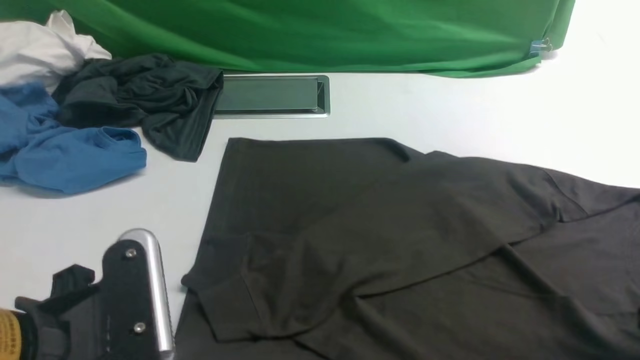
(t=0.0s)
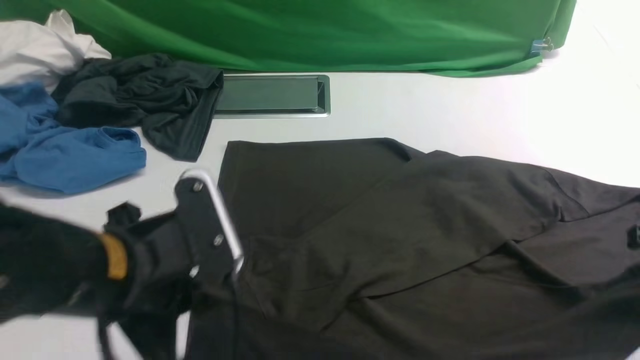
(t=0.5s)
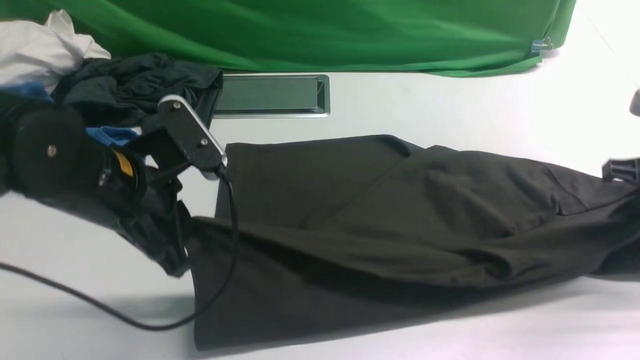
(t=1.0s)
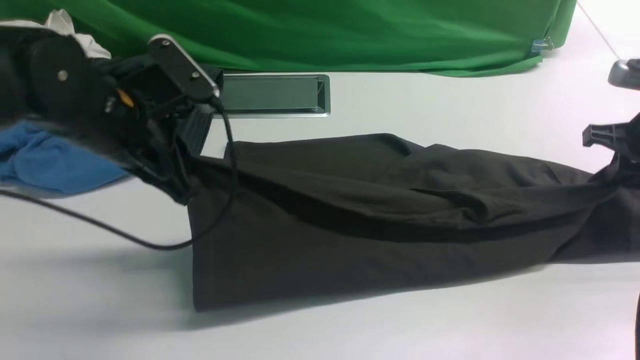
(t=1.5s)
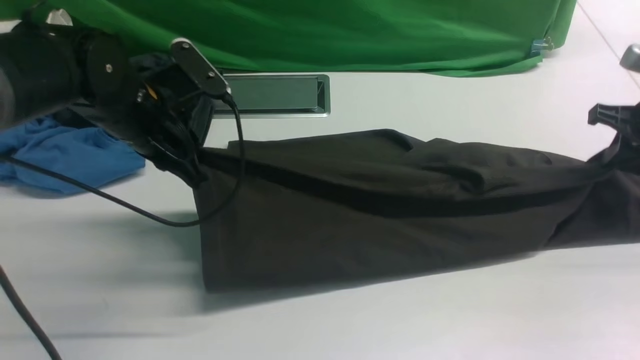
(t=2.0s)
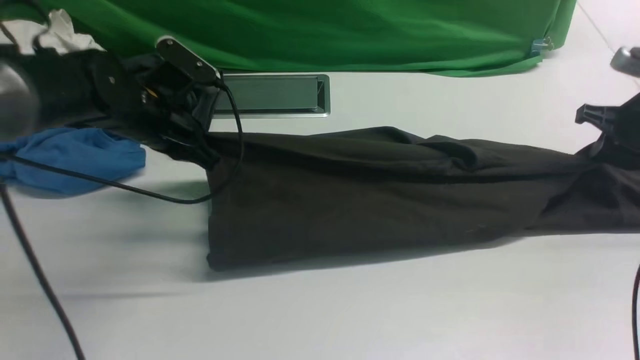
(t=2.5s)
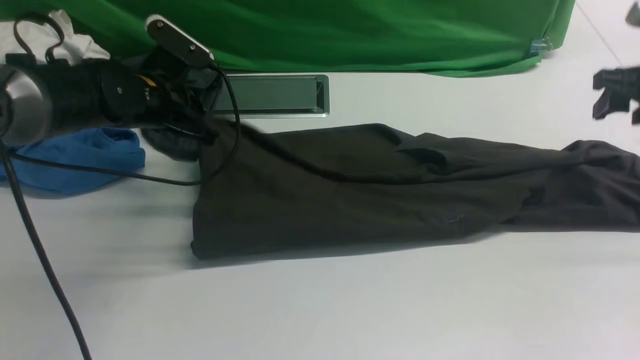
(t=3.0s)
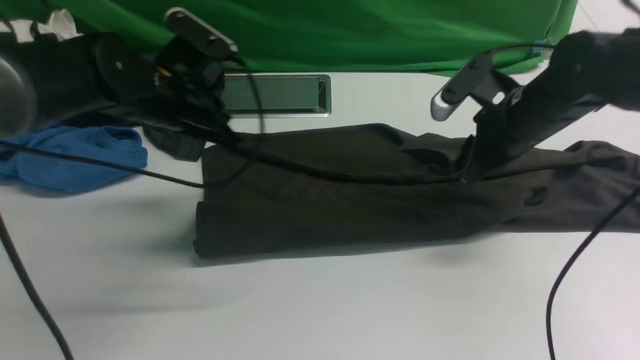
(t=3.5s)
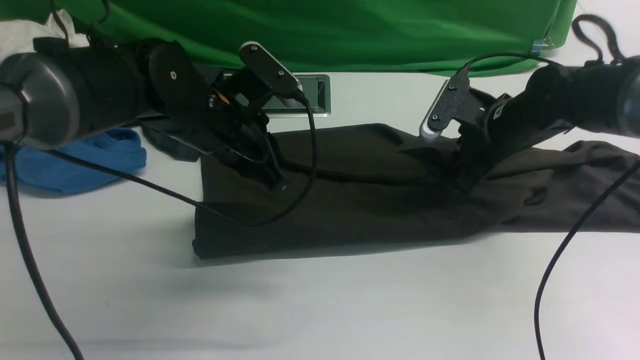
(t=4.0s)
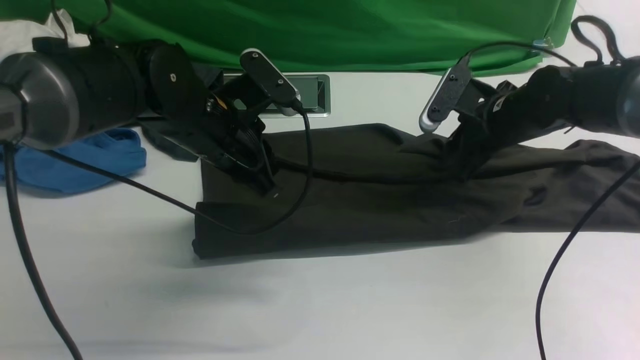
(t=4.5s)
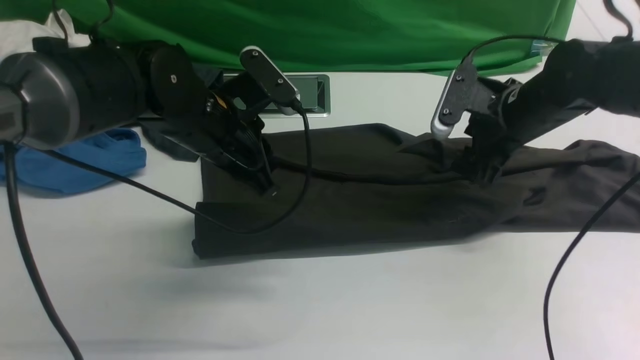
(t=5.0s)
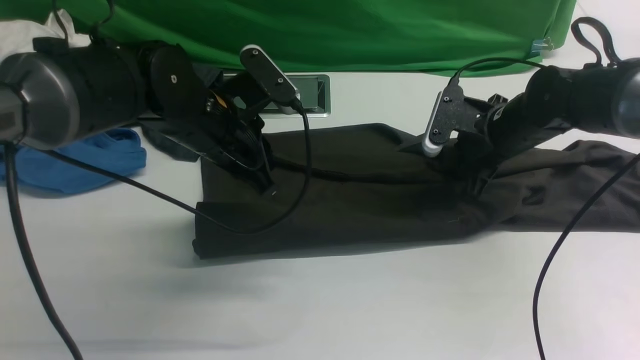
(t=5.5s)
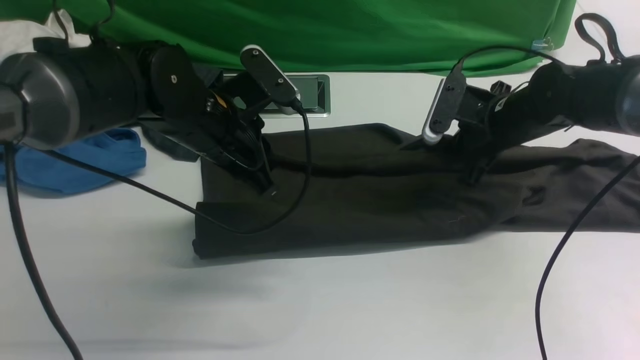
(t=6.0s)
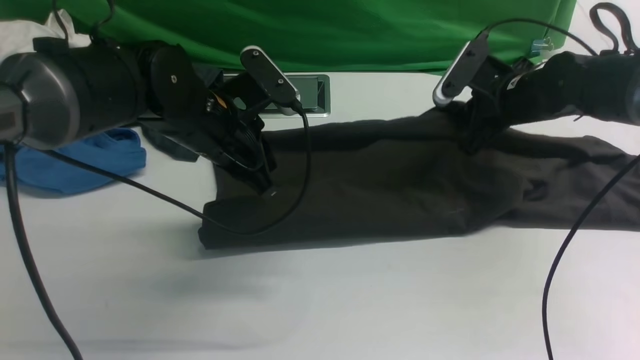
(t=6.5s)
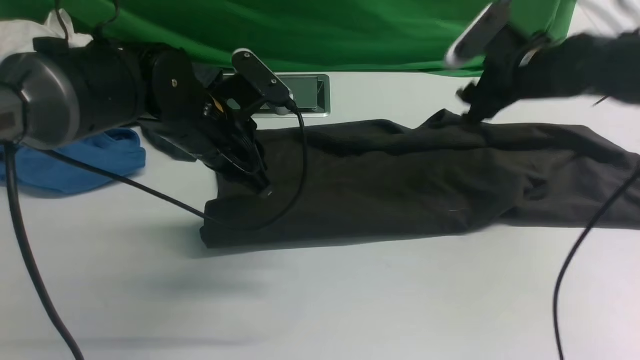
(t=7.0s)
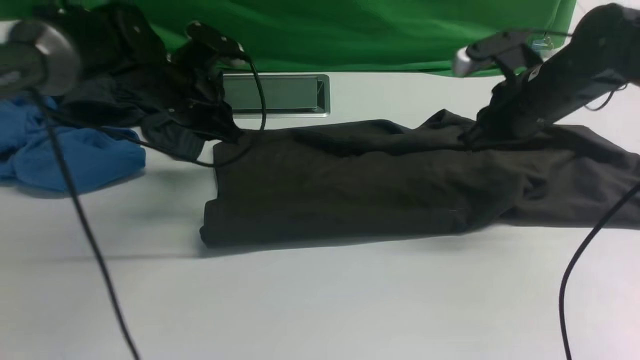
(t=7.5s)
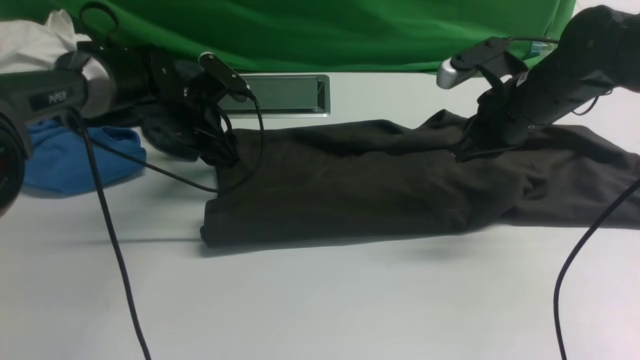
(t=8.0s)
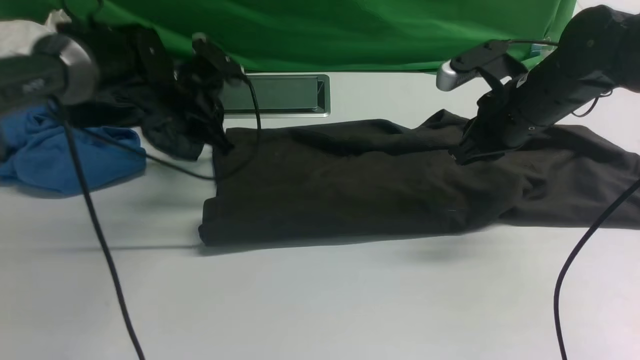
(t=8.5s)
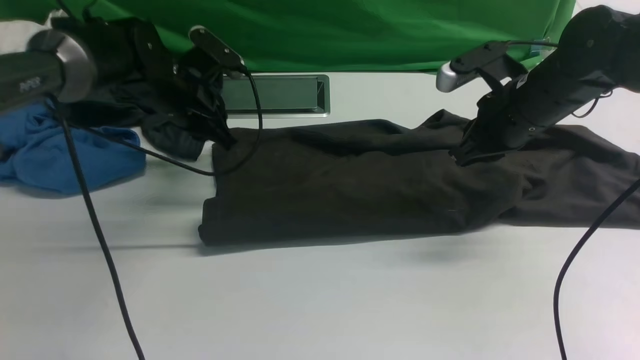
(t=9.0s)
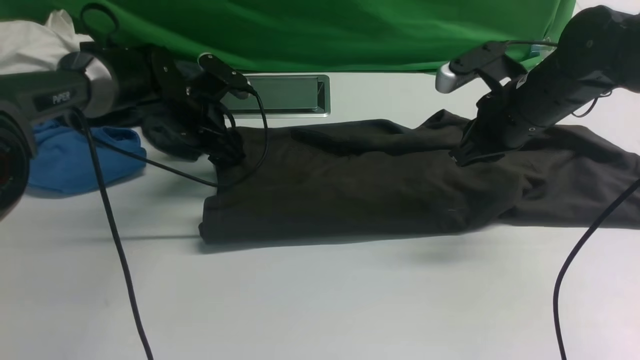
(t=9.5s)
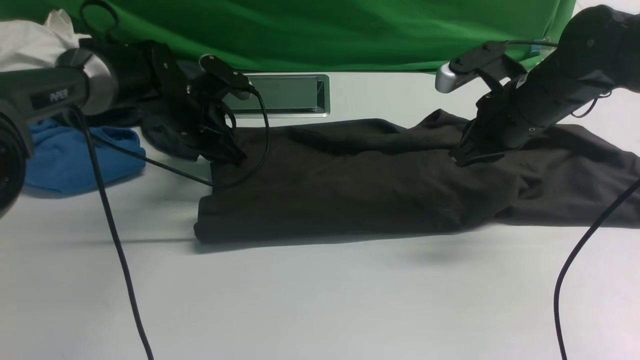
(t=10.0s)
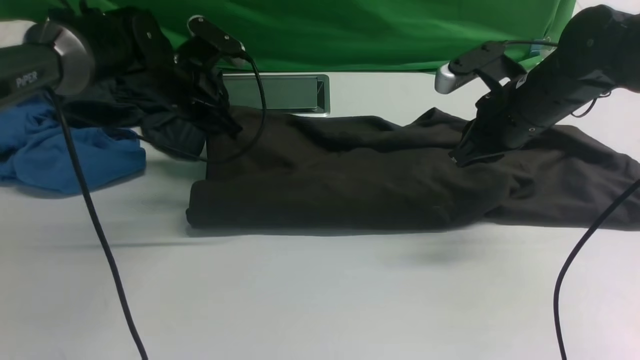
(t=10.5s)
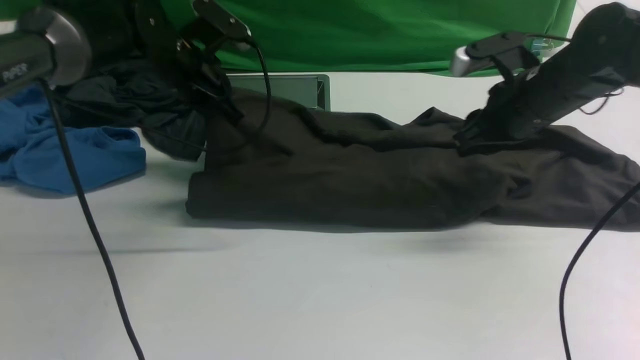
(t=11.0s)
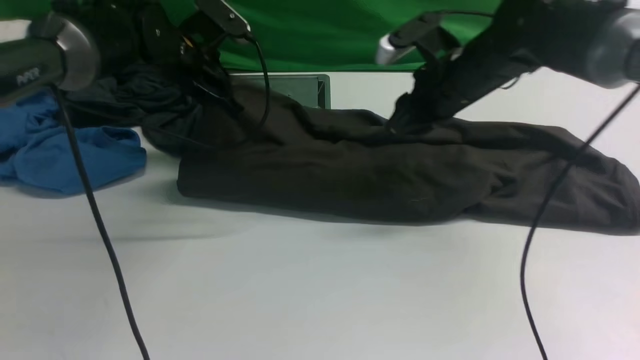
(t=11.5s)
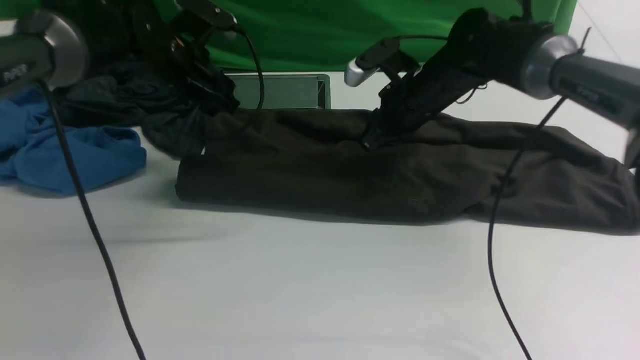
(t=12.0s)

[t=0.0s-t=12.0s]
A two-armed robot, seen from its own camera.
t=0.0s to t=2.0s: Both grippers travel together forward, approximately 25 cm.
t=2.0s to t=4.0s: The right gripper heads to the left, covering roughly 15 cm, and opens its fingers; the left gripper goes some 10 cm to the right, and opens and closes again.
t=4.0s to t=6.0s: The right gripper closes up.
t=6.0s to t=8.0s: The right gripper goes approximately 5 cm upward, and opens and closes again; the left gripper goes roughly 15 cm forward, downward and to the left, and opens its fingers.
t=8.0s to t=10.0s: The left gripper closes its fingers.
t=10.0s to t=12.0s: The left gripper travels upward by about 5 cm, and opens. The right gripper goes about 10 cm to the left and forward.

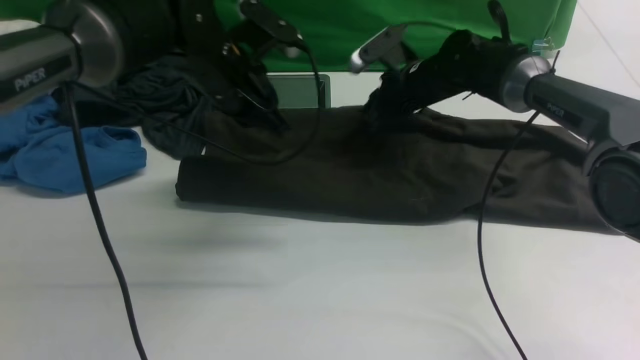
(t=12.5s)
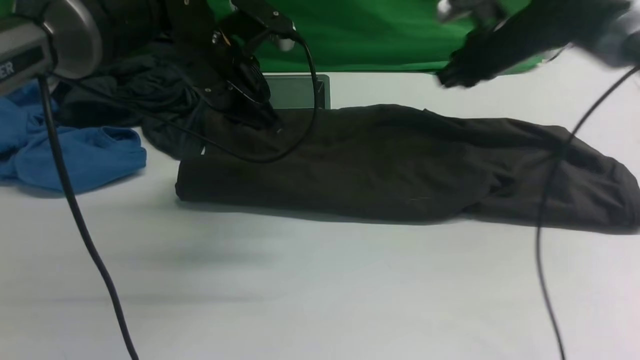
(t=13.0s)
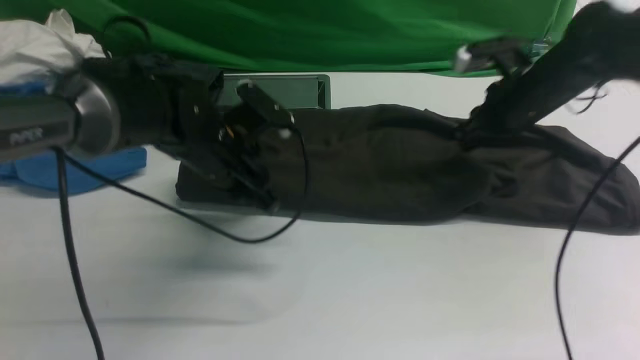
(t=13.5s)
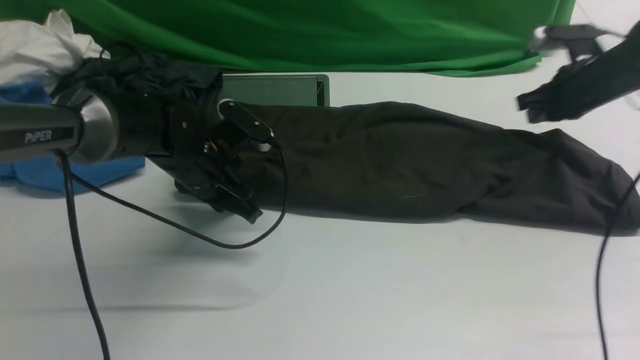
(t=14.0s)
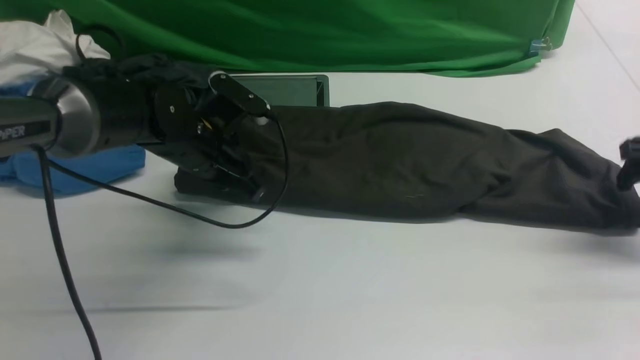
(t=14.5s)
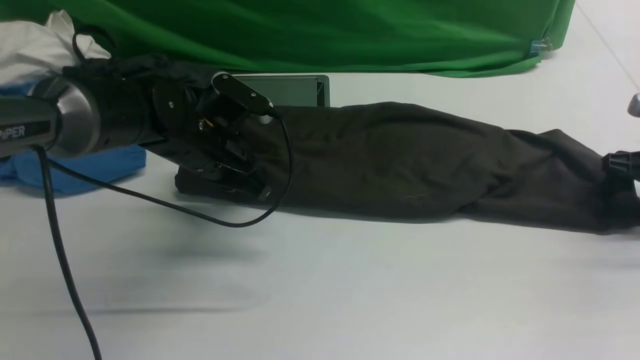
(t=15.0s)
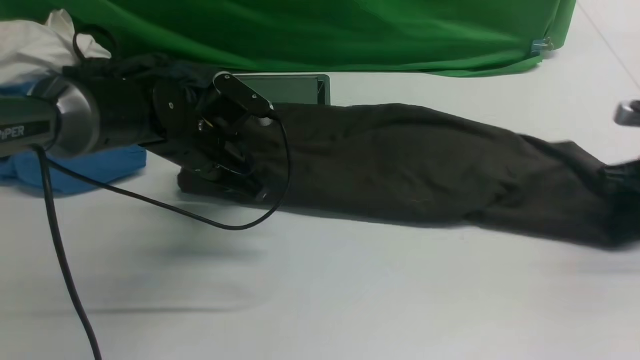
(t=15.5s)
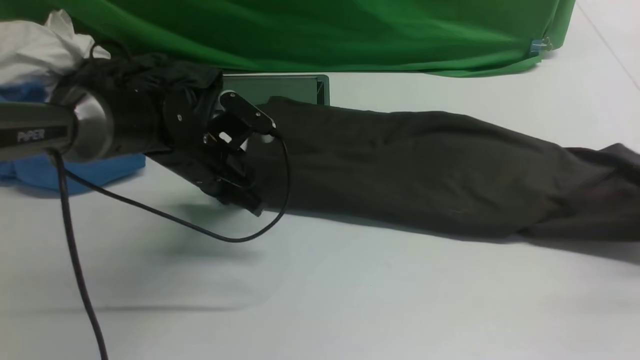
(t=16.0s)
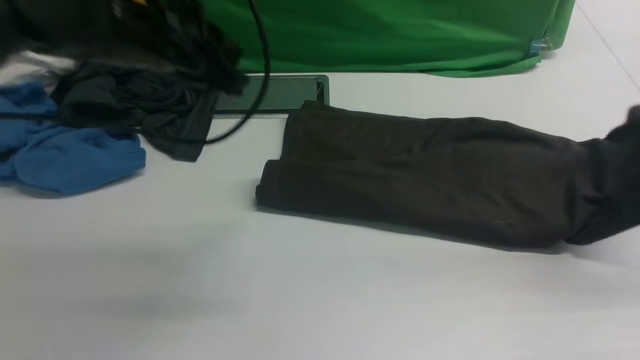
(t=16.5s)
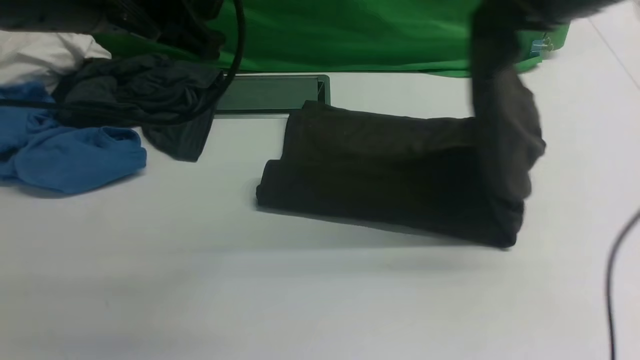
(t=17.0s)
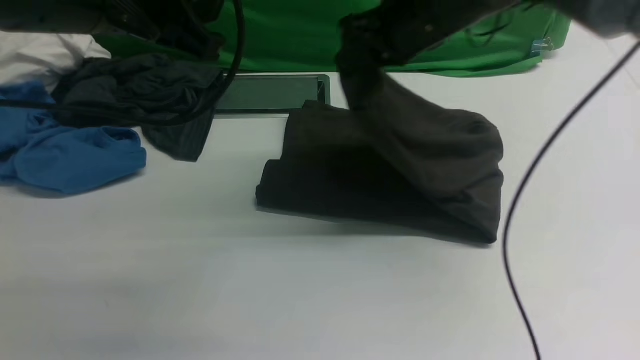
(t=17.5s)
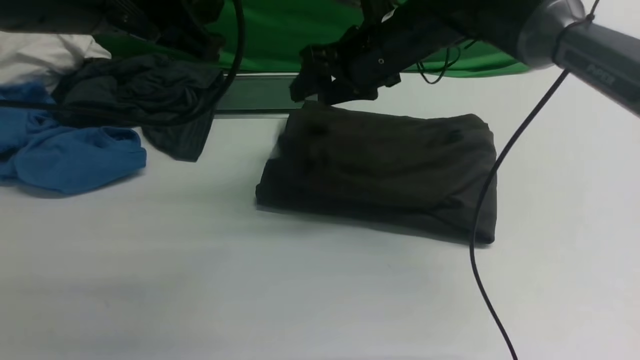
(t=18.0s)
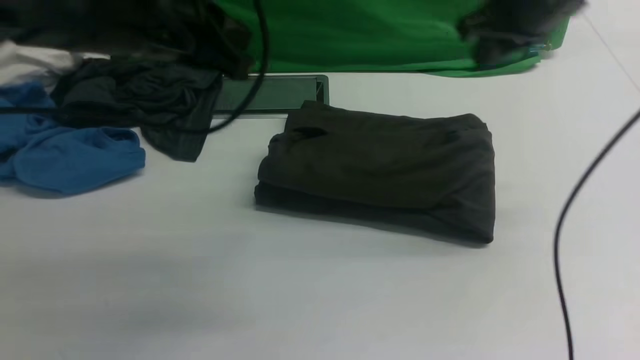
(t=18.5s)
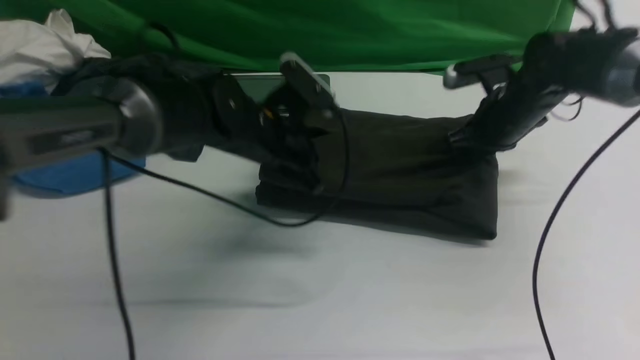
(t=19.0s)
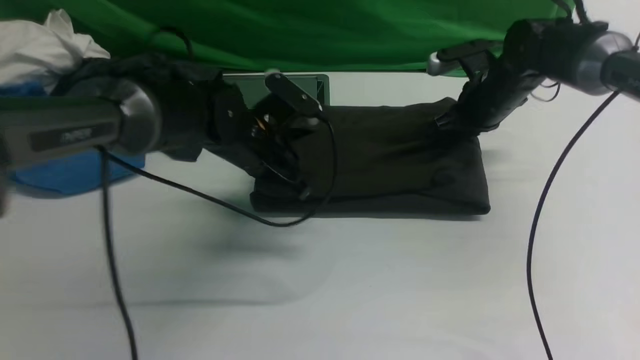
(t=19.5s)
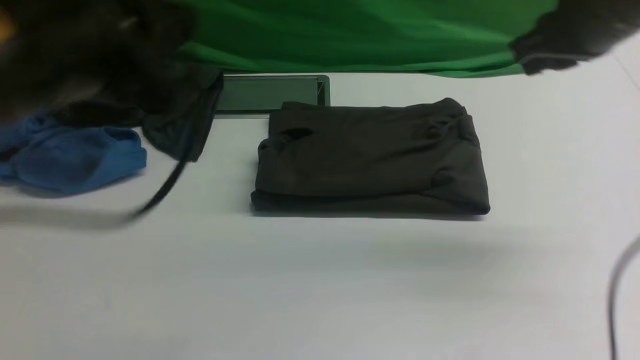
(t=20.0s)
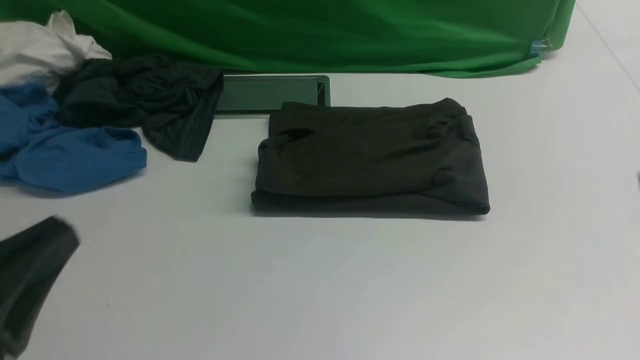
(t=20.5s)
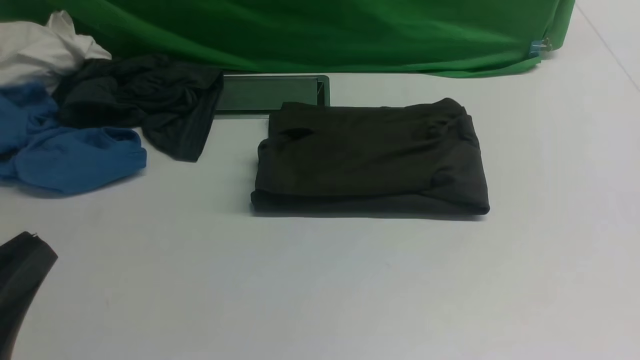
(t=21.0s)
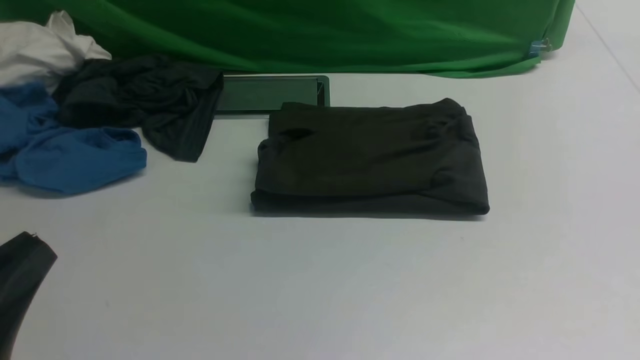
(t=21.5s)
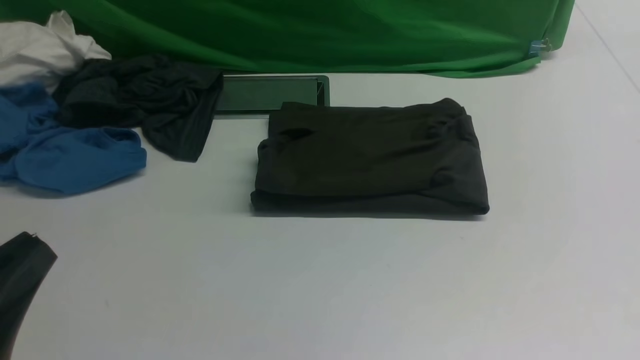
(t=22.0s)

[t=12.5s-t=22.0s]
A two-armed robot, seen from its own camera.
Step, t=14.5s to t=16.0s: use the right arm to clamp the right edge of the fabric.
Step, t=16.5s to t=18.0s: use the right arm to drag the right edge of the fabric to the left and folds it over the left edge.
t=12.5s to t=14.5s: The left gripper is displaced downward by some 10 cm, while the right gripper travels to the right and backward by about 30 cm, and opens its fingers.
t=14.5s to t=16.5s: Both grippers move upward, approximately 15 cm. The right gripper closes up.
t=16.5s to t=18.0s: The right gripper shifts approximately 30 cm to the left, and opens; the left gripper moves approximately 5 cm.
t=18.0s to t=20.0s: The right gripper shifts about 20 cm to the right, backward and upward, and closes up, while the left gripper moves backward, about 10 cm, and moves some 20 cm downward and comes back.
t=20.0s to t=22.0s: The right gripper goes some 30 cm backward, while the left gripper goes roughly 20 cm backward and downward.
